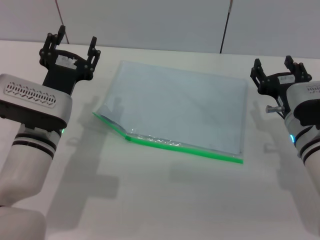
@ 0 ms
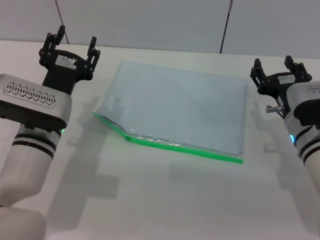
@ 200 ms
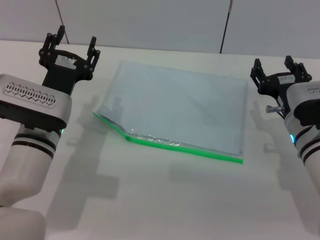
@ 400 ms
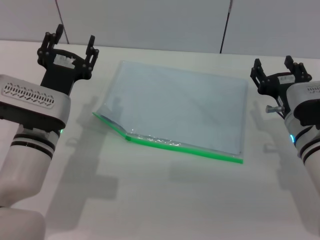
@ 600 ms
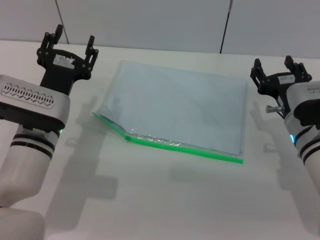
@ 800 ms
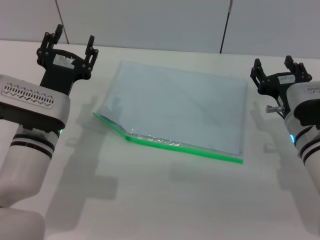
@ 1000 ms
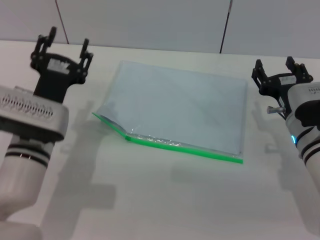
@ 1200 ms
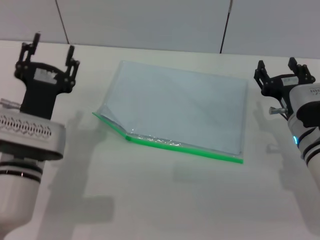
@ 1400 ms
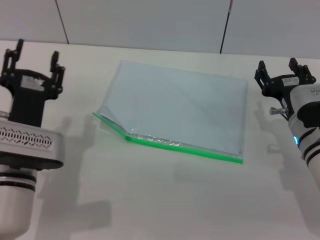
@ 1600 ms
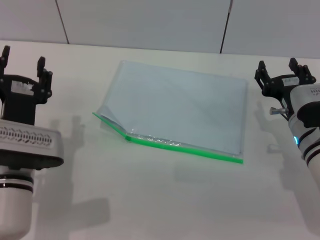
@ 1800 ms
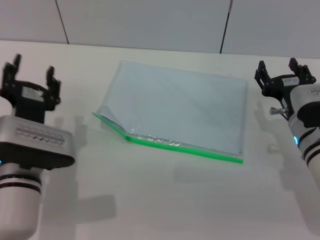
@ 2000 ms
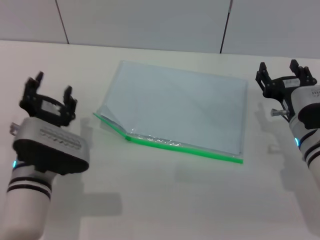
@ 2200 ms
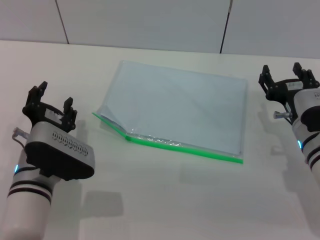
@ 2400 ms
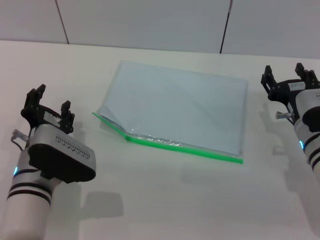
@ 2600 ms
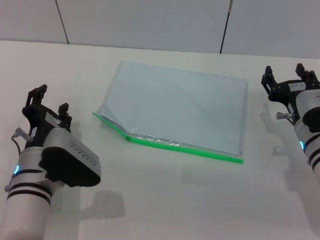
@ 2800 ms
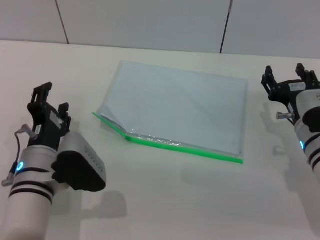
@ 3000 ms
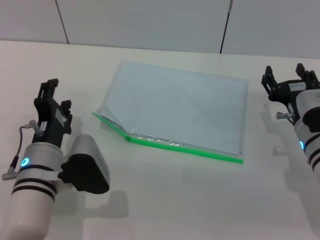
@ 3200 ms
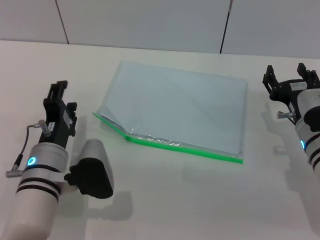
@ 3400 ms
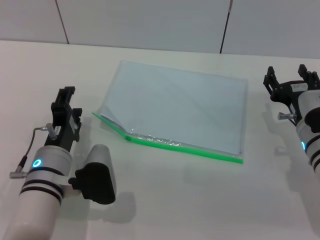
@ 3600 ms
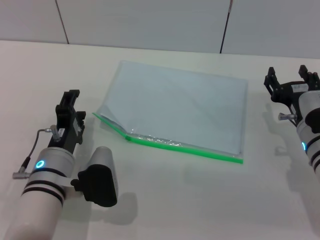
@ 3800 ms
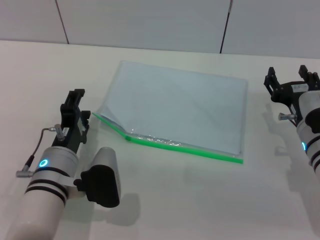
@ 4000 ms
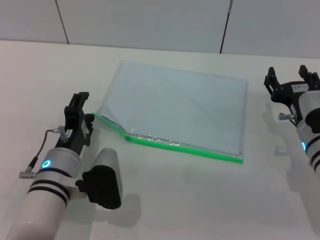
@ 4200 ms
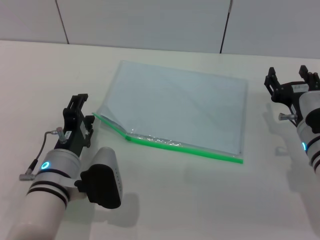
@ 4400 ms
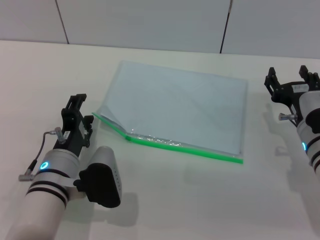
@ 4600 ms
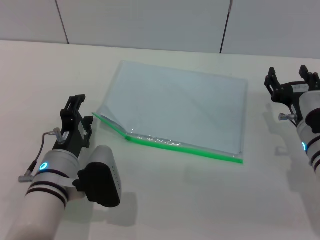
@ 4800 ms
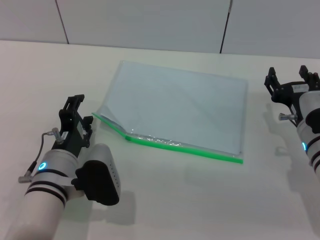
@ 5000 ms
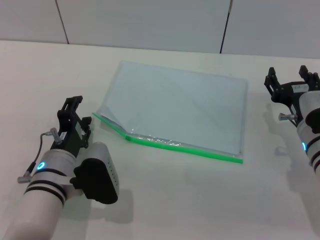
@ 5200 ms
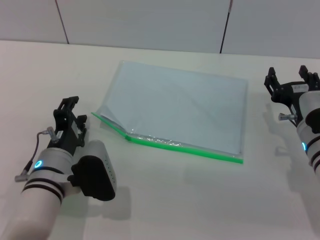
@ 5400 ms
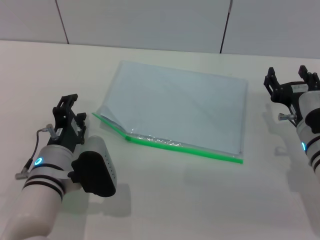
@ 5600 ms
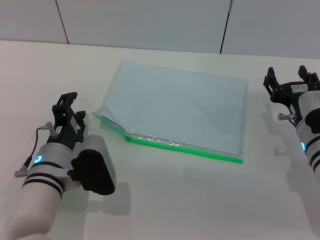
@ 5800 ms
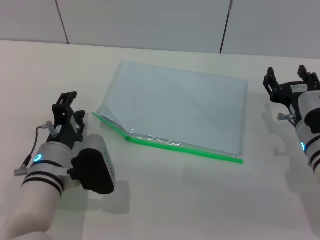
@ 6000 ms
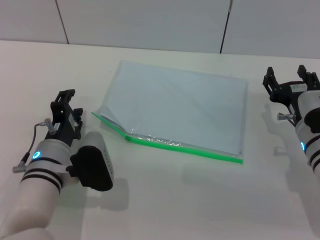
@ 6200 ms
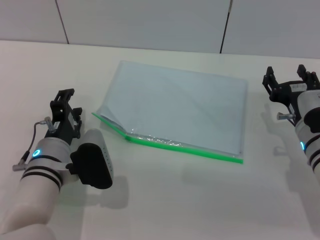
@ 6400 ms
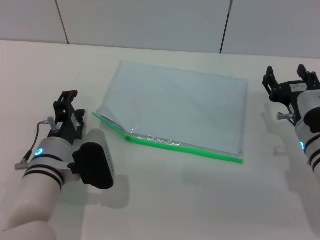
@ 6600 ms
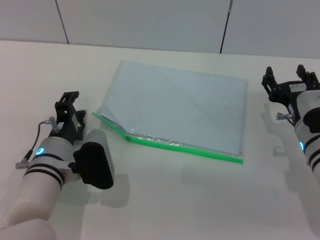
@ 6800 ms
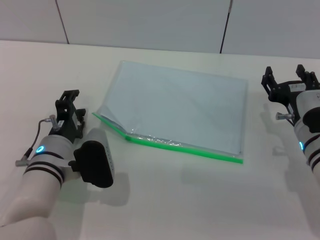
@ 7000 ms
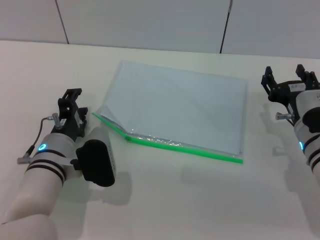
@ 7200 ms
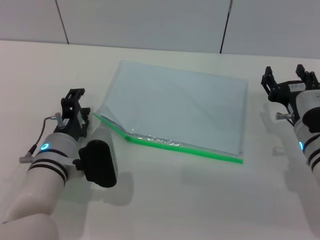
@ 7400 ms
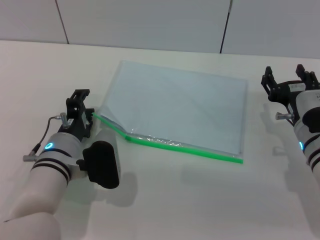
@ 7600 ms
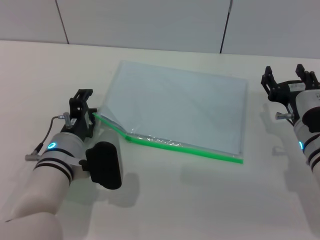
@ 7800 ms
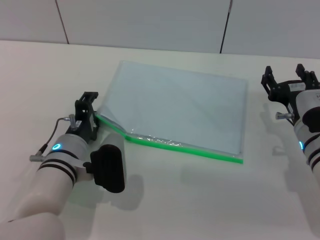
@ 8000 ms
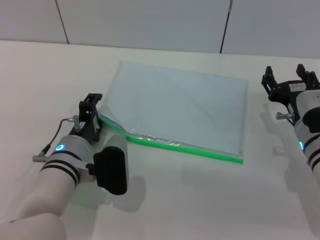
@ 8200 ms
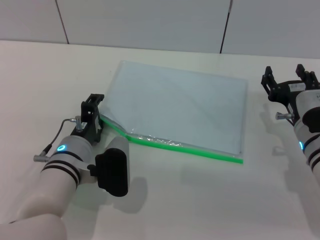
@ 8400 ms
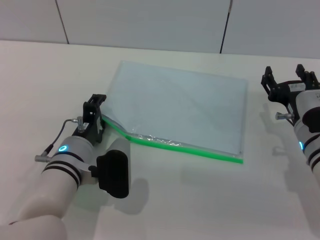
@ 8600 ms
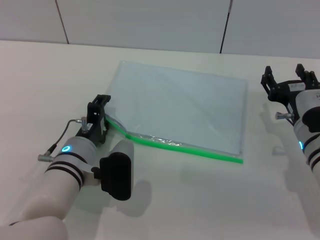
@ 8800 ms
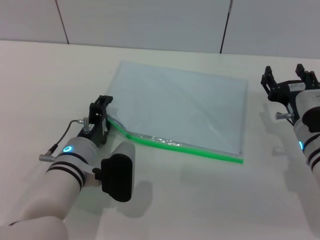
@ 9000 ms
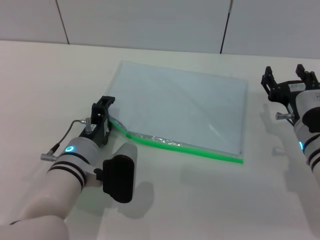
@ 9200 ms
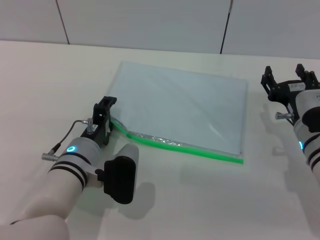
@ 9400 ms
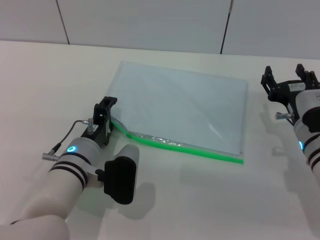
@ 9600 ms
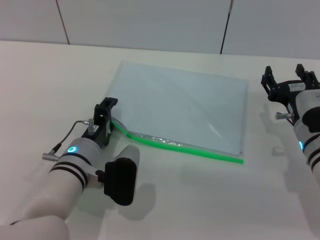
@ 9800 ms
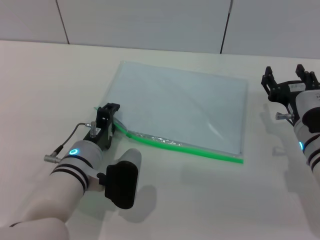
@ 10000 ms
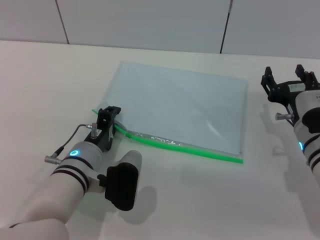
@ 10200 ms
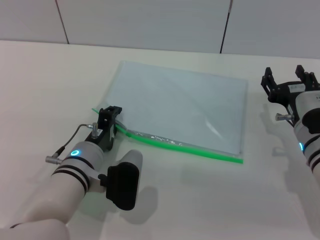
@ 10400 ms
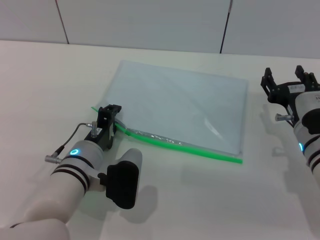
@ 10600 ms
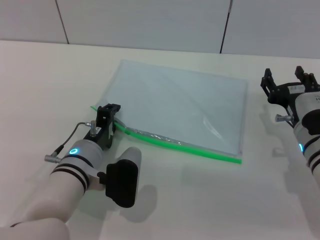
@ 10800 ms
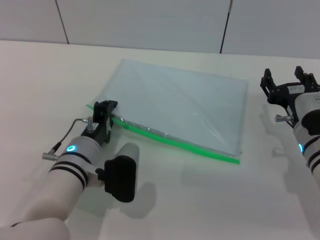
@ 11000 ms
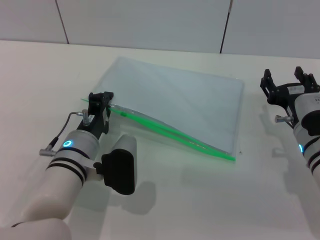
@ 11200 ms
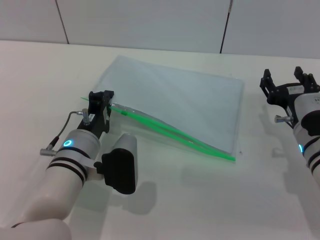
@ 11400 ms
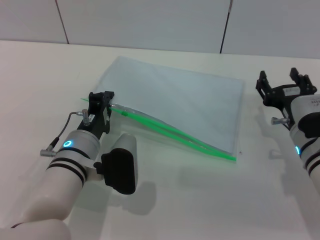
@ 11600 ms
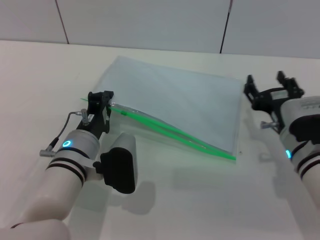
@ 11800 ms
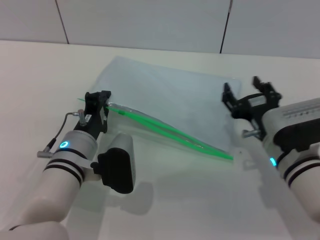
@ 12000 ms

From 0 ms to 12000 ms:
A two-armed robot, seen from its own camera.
Step, from 0 ms to 11400 ms: Pick up the transparent plastic bag with the left gripper.
From 0 ms to 1600 ms: The left gripper moves backward, approximately 5 cm.
From 3000 ms to 6000 ms: There are only small adjustments of the grippers.
From 6000 ms to 9000 ms: The grippers make only small movements.
From 9000 ms to 10400 ms: The left gripper closes.
From 10400 ms to 12000 ms: The left gripper closes up.

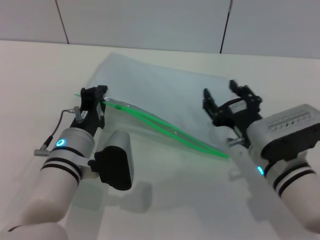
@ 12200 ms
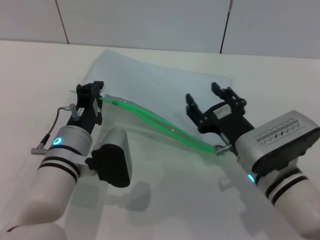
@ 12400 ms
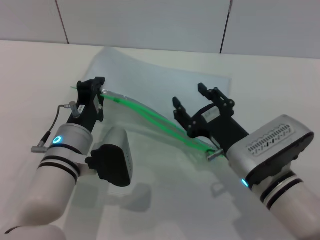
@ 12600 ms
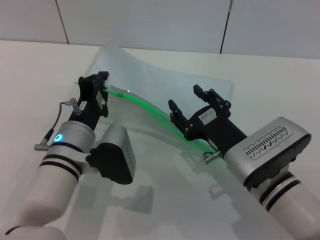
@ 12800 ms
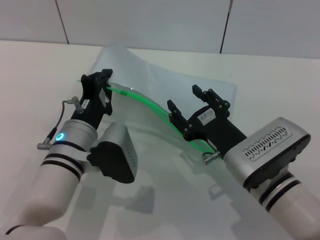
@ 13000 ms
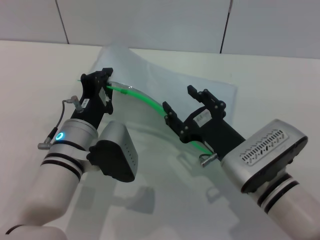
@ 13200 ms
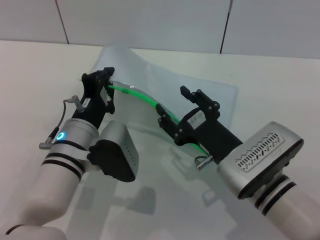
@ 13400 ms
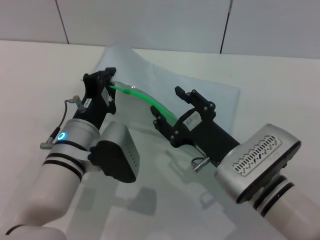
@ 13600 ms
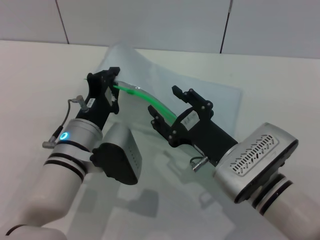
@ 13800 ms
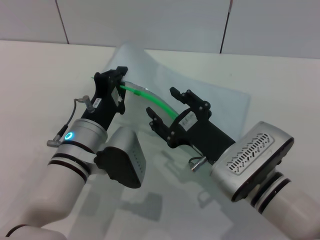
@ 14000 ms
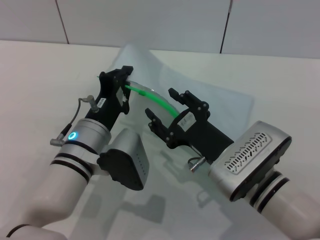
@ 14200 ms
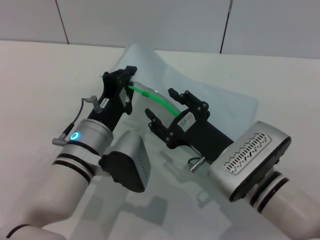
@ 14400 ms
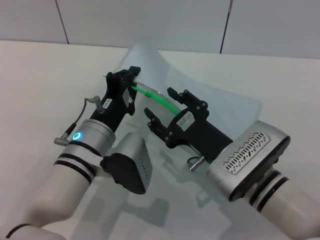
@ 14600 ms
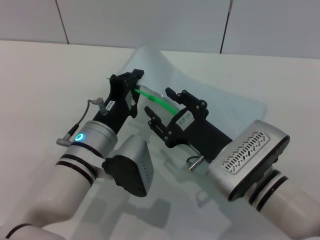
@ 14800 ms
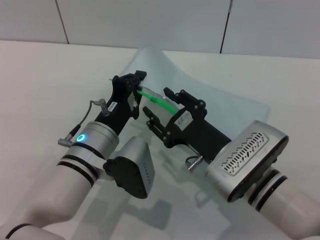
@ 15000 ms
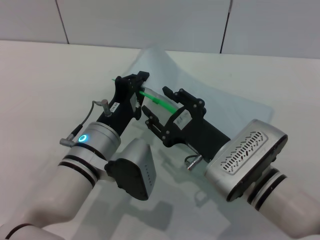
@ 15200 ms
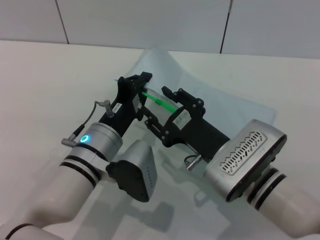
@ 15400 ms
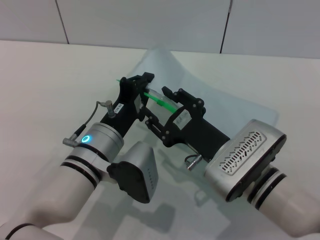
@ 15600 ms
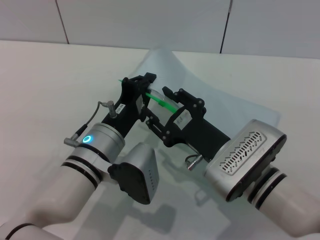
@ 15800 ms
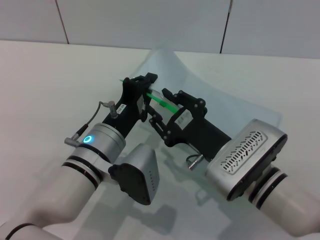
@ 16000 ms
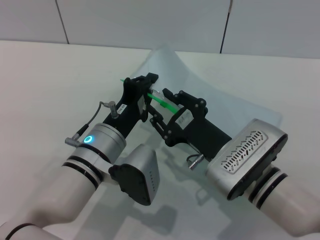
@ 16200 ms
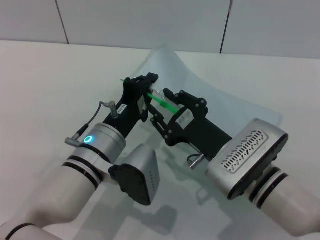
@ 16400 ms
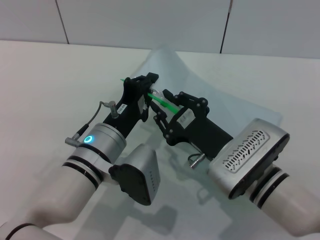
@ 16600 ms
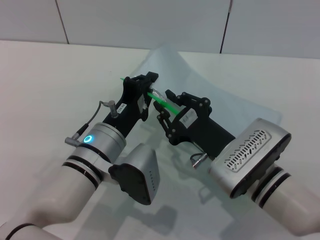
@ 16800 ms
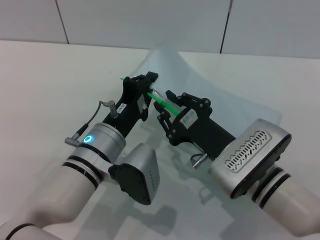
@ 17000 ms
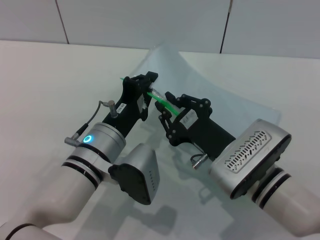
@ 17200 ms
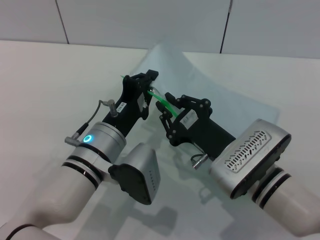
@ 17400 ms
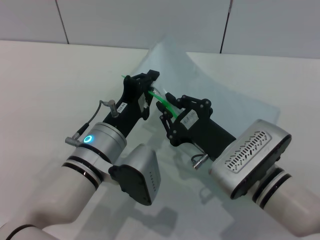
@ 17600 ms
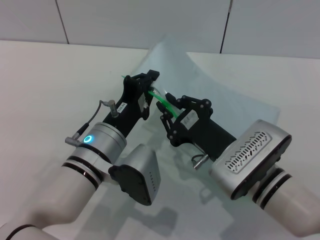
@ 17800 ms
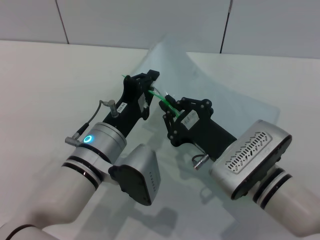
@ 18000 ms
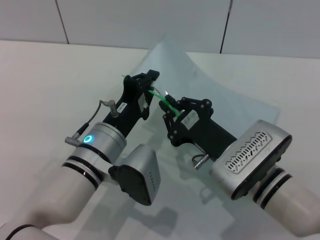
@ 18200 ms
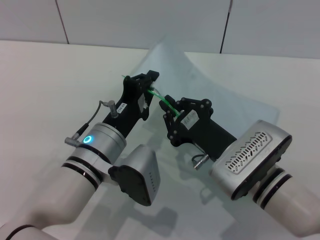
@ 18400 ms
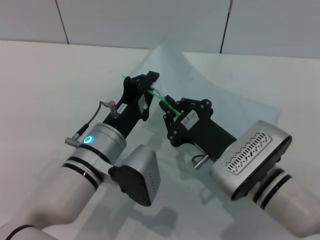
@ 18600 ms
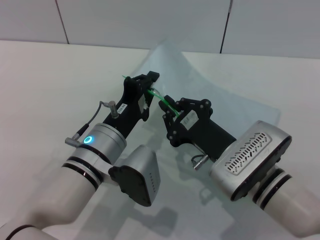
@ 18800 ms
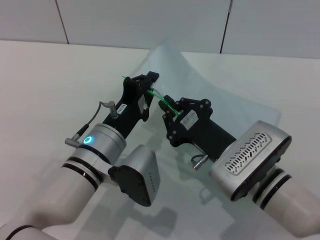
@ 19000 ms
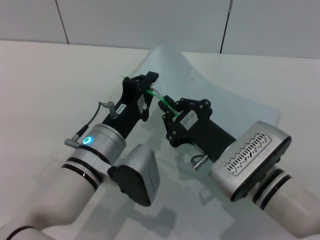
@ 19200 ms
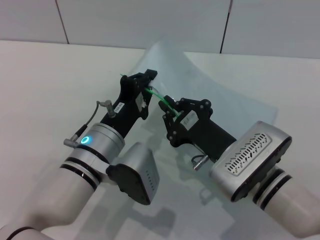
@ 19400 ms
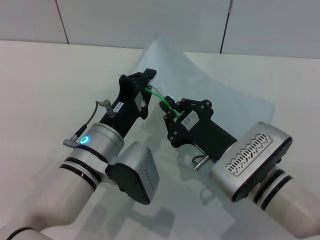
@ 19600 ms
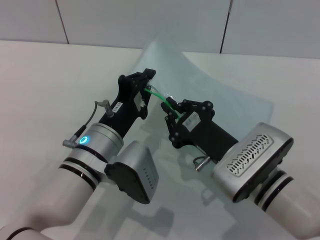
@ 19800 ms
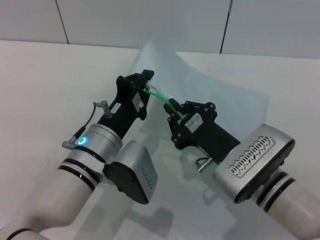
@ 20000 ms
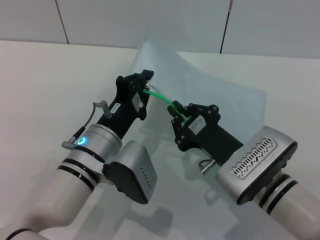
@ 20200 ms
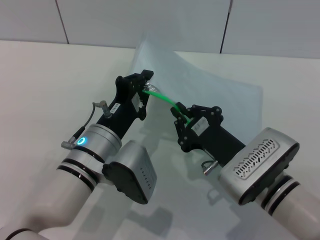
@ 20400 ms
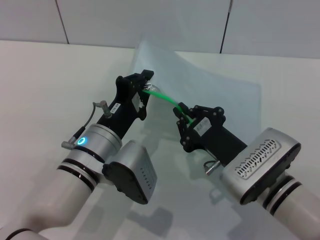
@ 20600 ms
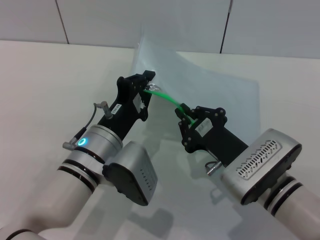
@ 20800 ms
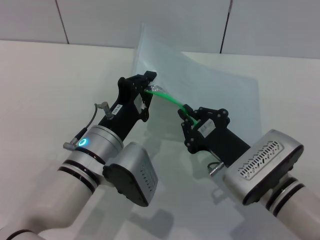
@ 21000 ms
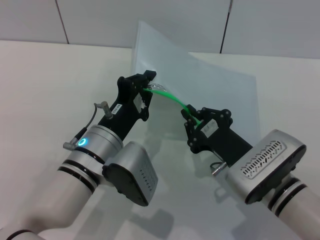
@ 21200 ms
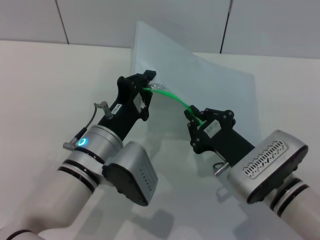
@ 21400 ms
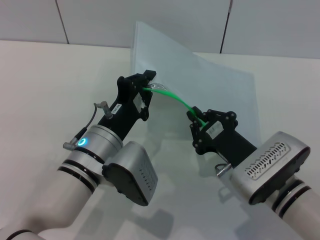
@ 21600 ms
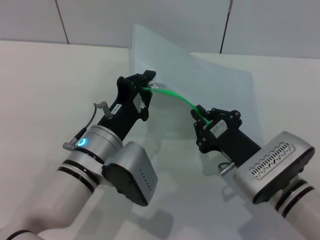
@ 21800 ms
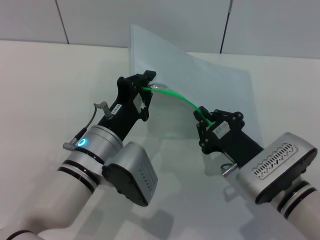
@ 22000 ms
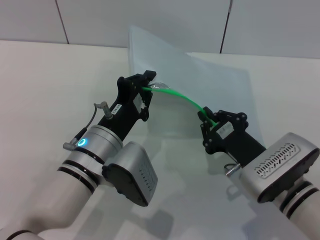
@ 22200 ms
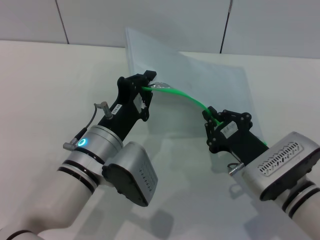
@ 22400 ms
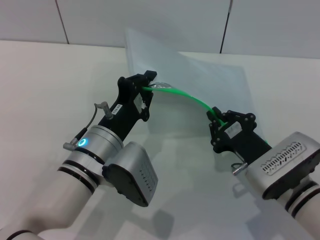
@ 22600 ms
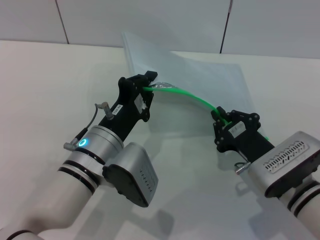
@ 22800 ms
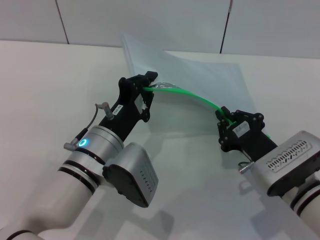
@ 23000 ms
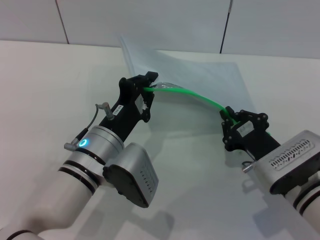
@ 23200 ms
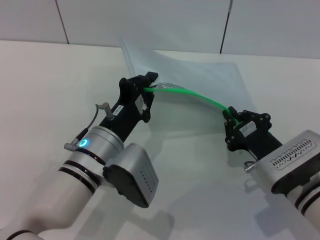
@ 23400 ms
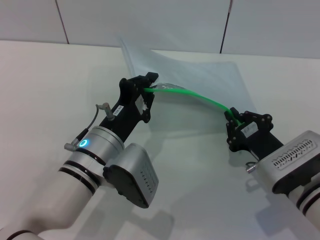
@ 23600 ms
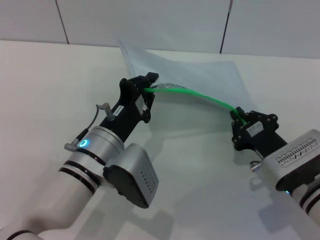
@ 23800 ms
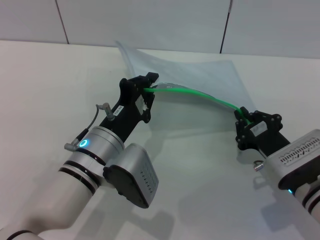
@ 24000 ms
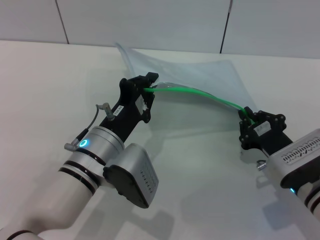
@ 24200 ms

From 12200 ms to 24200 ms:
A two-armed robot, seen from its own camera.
From 12200 ms to 13800 ms: The right gripper ends up approximately 5 cm from where it was.
From 15200 ms to 16600 ms: Both grippers stay about where they are.
From 16600 ms to 18200 ms: The right gripper closes up.
From 18200 ms to 19800 ms: Both grippers stay put.
From 19800 ms to 22600 ms: There are only small adjustments of the grippers.
From 22600 ms to 24200 ms: The grippers stay close to where they were, moving slightly.
